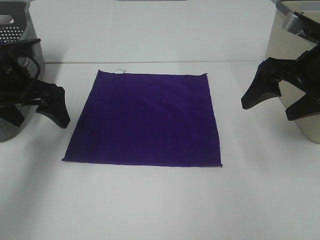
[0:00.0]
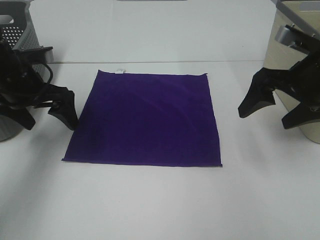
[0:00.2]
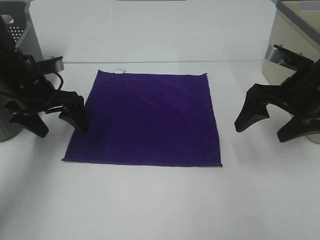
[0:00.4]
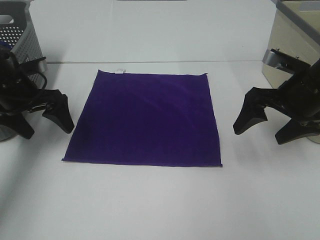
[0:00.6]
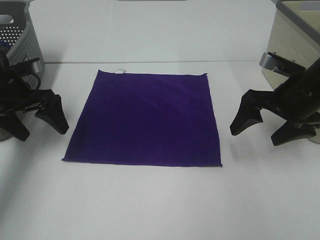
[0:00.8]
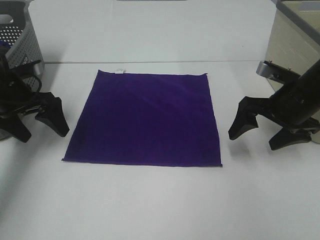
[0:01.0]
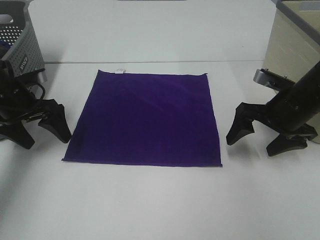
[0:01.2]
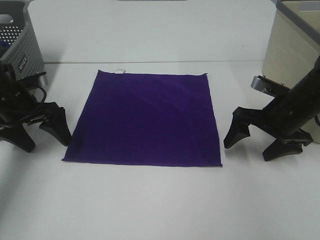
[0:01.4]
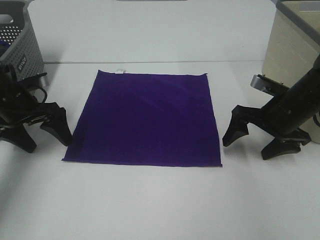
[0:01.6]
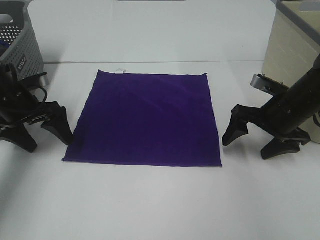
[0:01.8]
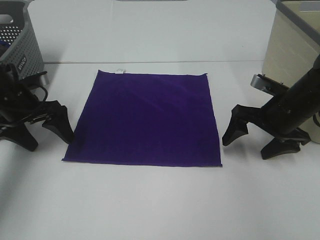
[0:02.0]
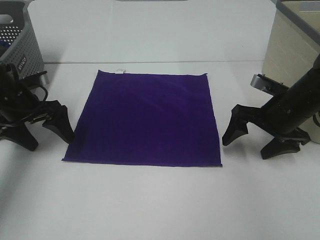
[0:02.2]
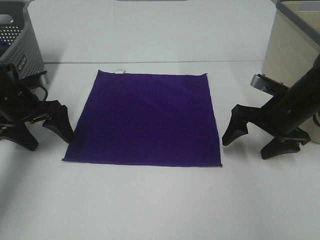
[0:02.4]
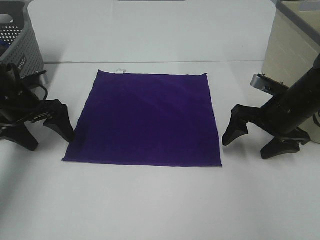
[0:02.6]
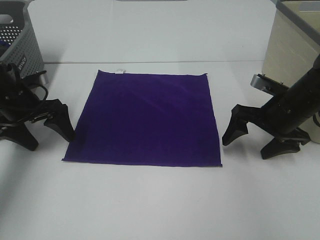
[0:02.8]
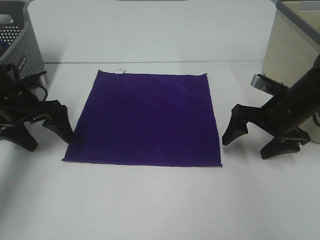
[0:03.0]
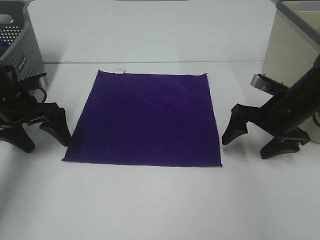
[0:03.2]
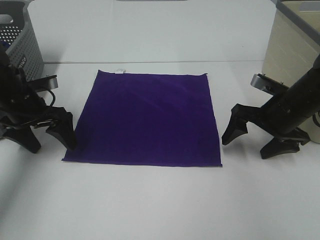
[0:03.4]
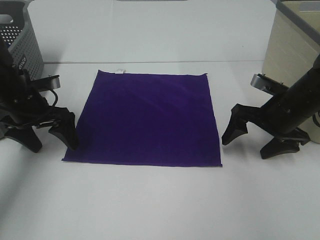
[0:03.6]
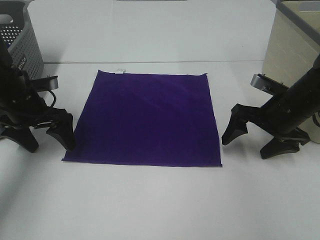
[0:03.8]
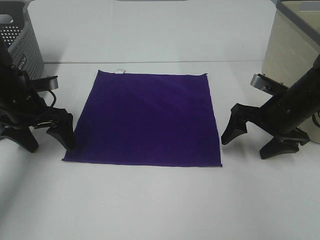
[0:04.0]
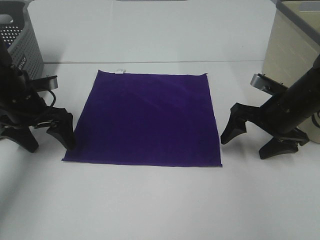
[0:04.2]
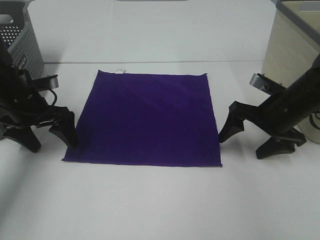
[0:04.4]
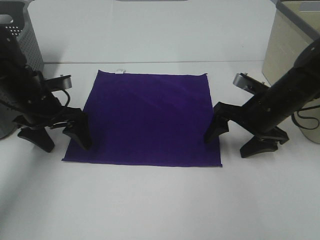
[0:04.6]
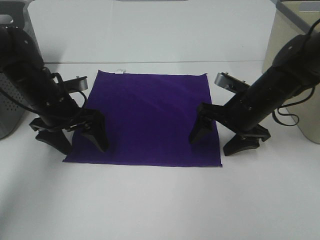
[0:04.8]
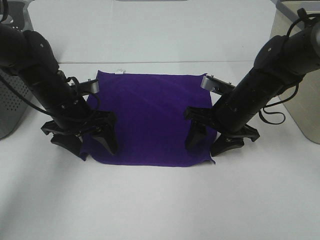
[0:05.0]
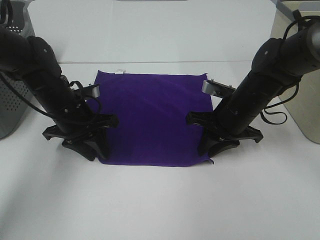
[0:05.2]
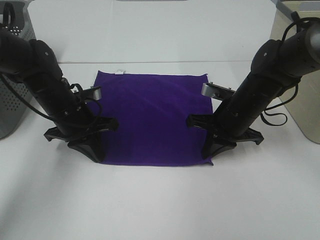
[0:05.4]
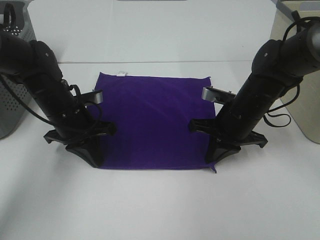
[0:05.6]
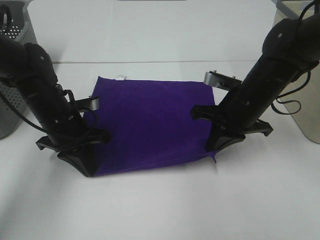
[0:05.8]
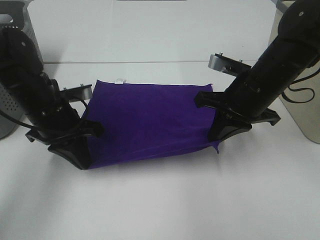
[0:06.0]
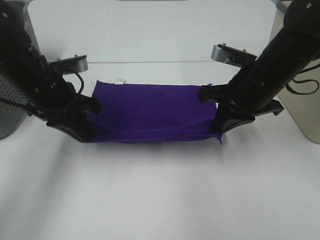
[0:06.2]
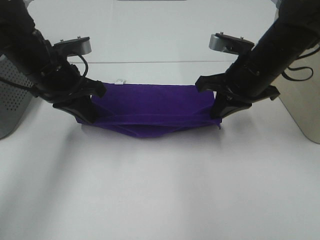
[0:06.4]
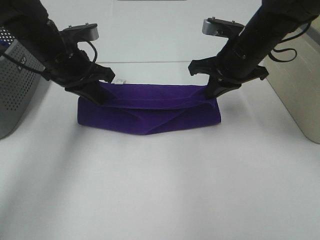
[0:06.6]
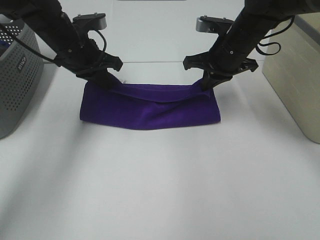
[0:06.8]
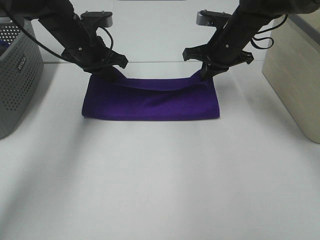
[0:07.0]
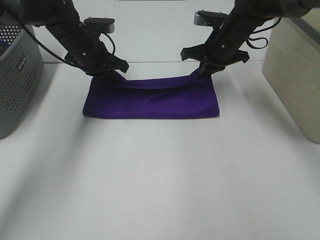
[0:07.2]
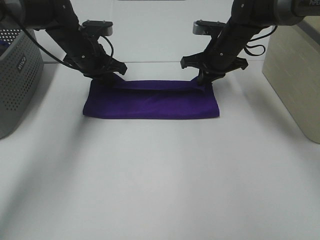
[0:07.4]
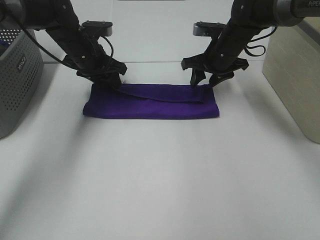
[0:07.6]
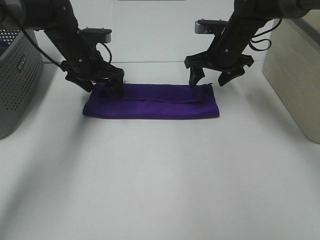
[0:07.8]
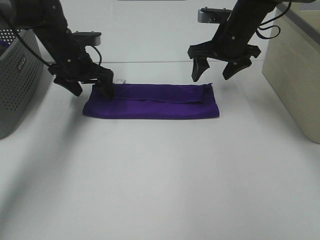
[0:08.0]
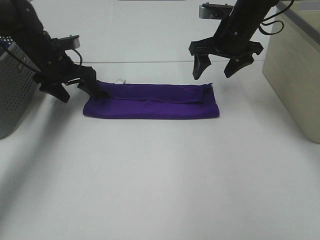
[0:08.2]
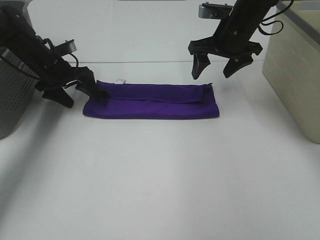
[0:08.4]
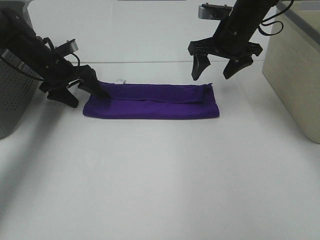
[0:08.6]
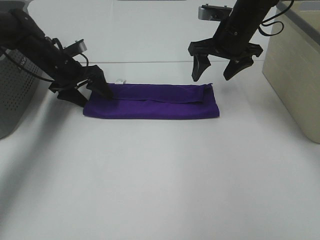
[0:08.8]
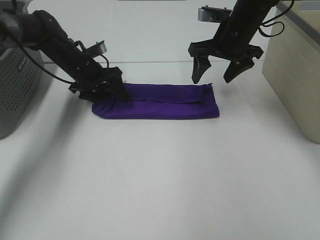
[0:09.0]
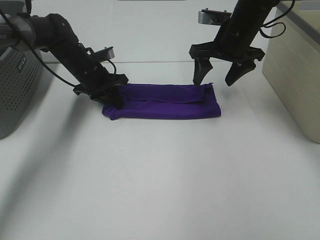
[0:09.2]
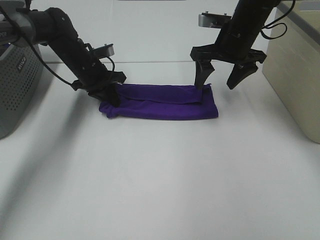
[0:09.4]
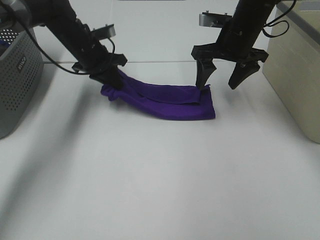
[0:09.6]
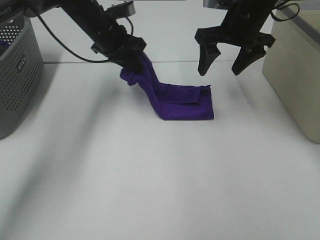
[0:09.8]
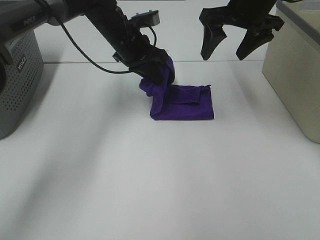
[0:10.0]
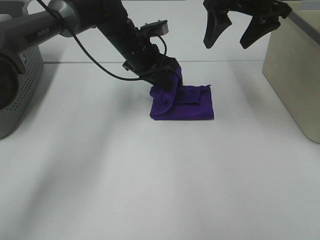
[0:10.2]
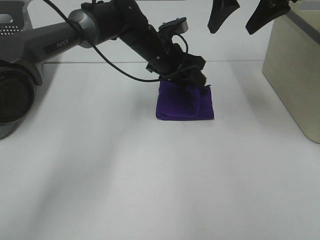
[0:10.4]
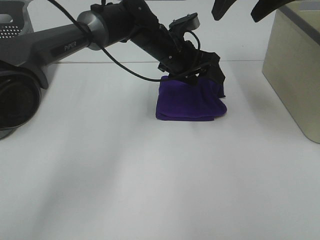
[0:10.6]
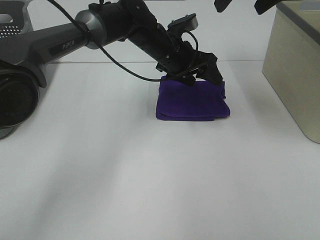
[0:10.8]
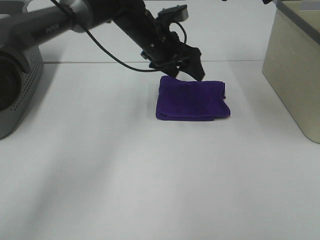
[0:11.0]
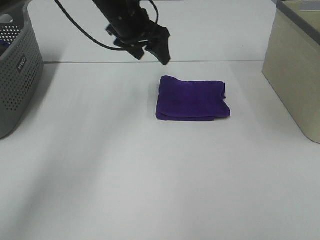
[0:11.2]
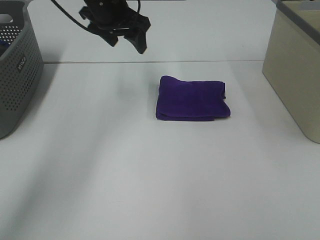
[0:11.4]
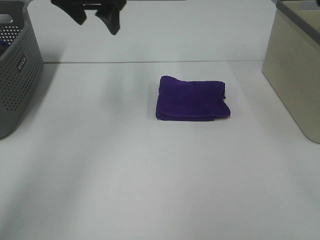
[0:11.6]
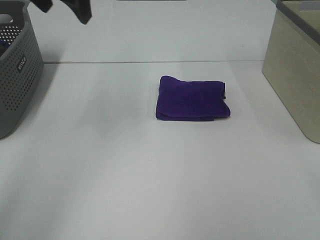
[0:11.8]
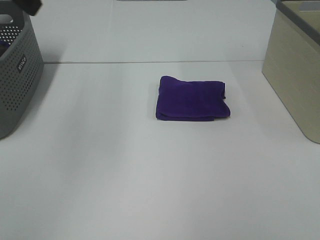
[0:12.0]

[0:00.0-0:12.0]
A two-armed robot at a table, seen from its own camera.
Task of the whole recording: Fold towels.
Step, 0:00.0 to 0:05.2: Left hand: grab the bottom left corner of purple towel.
Step, 0:00.0 to 0:05.2: Right hand: grab the bottom right corner of purple towel.
Step, 0:05.4 to 0:07.6: Left hand: fold the purple towel up.
Step, 0:05.4 to 0:07.6: Right hand: fold the purple towel up.
Step, 0:07.8 to 0:10.2: Left hand: fold the purple towel from left to right.
0:00.0 to 0:01.6: The grippers both shift downward by roughly 10 cm.
0:01.6 to 0:03.0: Neither gripper changes place.
0:03.0 to 0:04.4: The grippers stay close to where they were, moving slightly.
0:04.4 to 0:06.0: The left gripper travels to the right and backward by approximately 10 cm, and closes up. The right gripper moves to the left and upward, about 10 cm, and closes up.
0:06.0 to 0:07.6: The two grippers go approximately 15 cm forward. The left gripper opens its fingers. Meanwhile the right gripper opens its fingers.
0:07.6 to 0:09.0: The left gripper travels downward by about 5 cm, and goes to the left and returns, about 10 cm each way. Meanwhile the right gripper goes roughly 5 cm upward.
0:09.0 to 0:10.4: The left gripper goes roughly 20 cm to the right, and closes, then opens again. The right gripper is displaced upward and backward by roughly 15 cm.
0:10.4 to 0:12.0: The left gripper travels upward, to the left and backward by approximately 40 cm, while the right gripper goes about 35 cm backward.

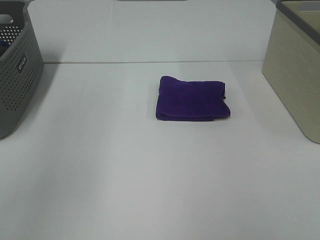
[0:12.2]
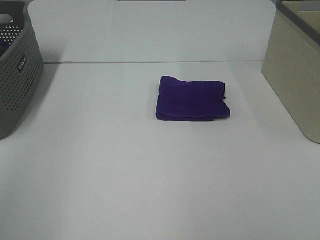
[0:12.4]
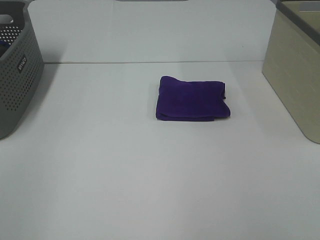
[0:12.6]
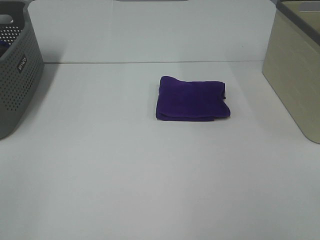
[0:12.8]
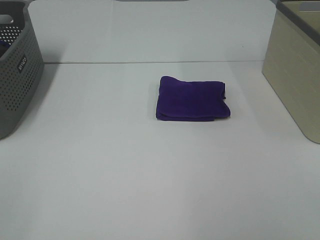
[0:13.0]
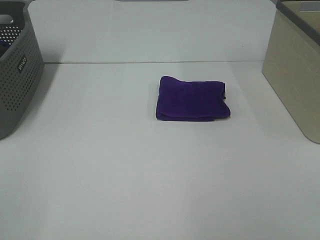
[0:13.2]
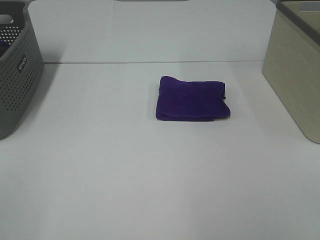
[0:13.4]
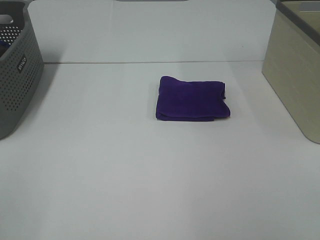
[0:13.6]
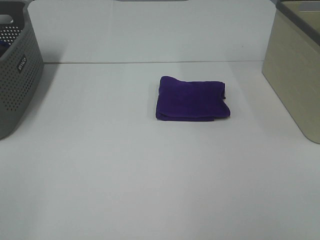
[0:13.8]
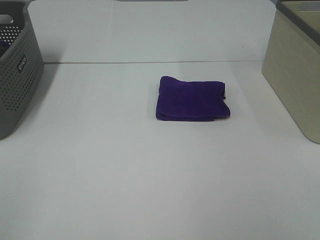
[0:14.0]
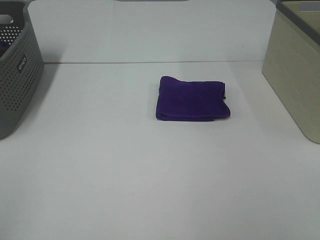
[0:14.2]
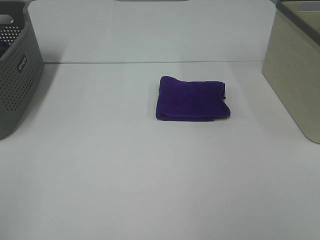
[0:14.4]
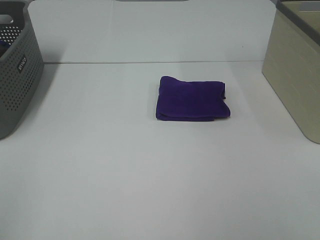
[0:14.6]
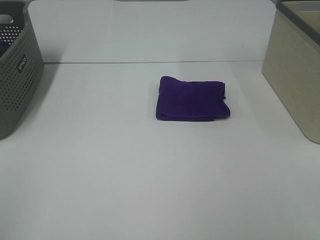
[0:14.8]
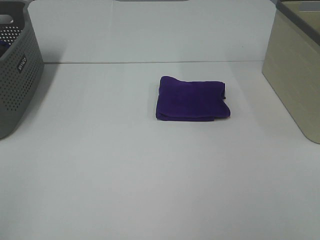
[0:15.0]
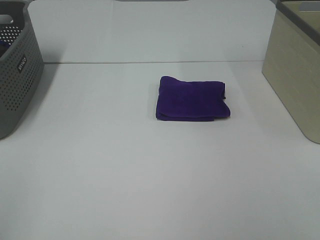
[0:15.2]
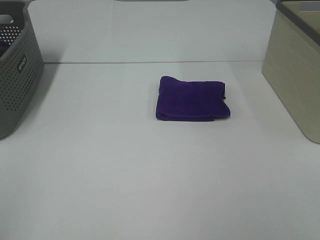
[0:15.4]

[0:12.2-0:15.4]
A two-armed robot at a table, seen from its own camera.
Task of the whole recording: Fold towels.
0:12.2 to 0:13.8: The left gripper moves backward and downward, approximately 20 cm.
